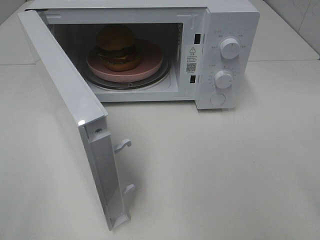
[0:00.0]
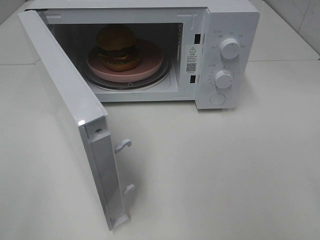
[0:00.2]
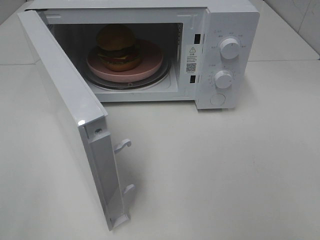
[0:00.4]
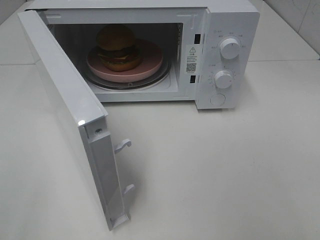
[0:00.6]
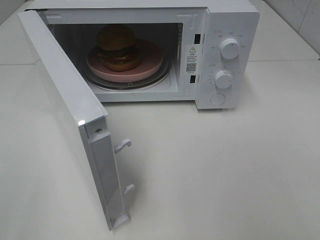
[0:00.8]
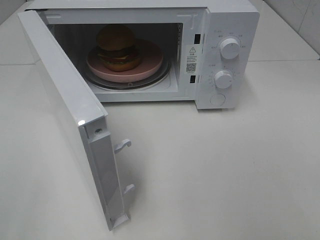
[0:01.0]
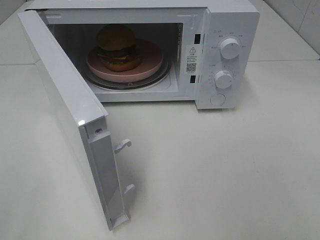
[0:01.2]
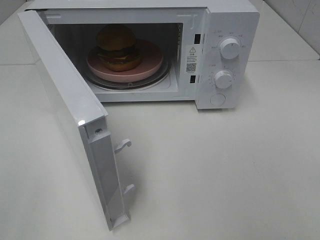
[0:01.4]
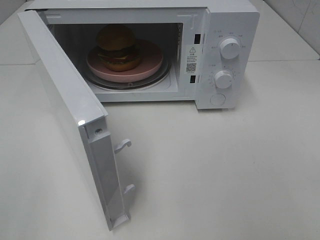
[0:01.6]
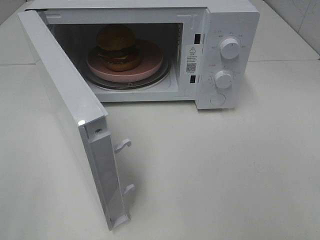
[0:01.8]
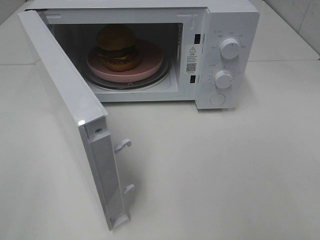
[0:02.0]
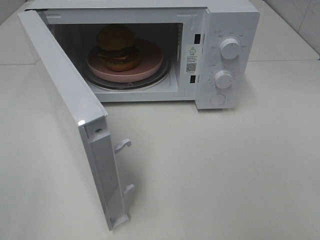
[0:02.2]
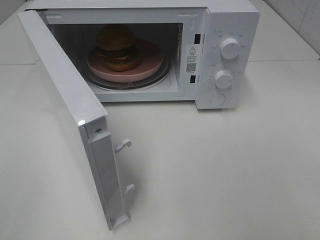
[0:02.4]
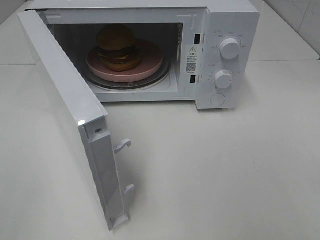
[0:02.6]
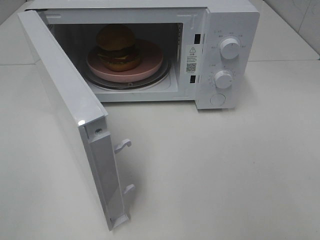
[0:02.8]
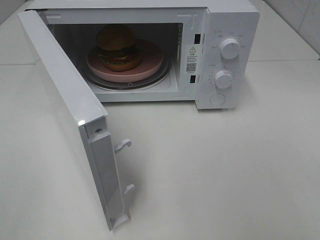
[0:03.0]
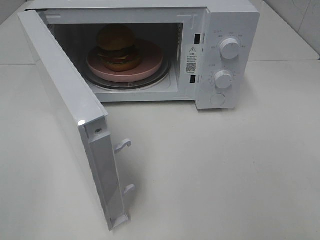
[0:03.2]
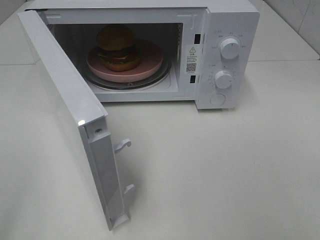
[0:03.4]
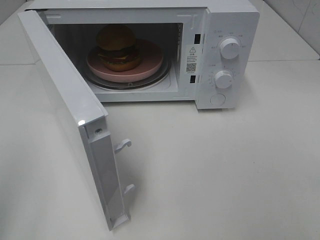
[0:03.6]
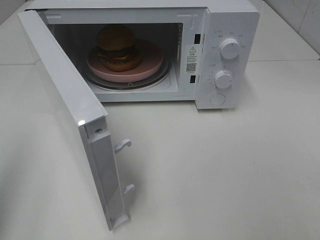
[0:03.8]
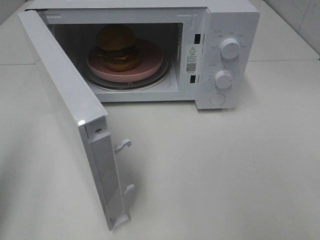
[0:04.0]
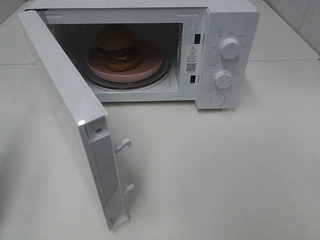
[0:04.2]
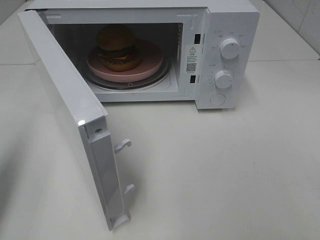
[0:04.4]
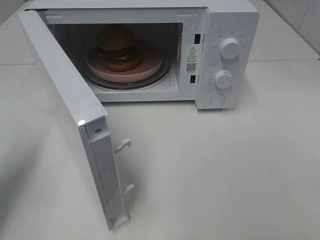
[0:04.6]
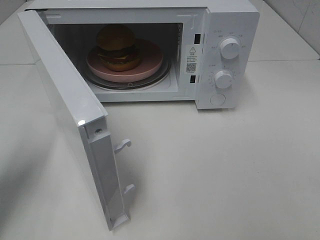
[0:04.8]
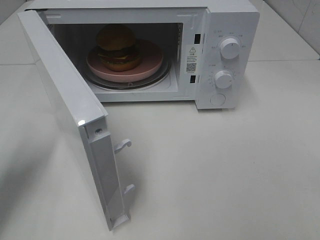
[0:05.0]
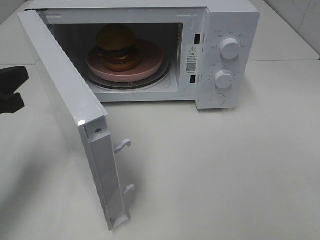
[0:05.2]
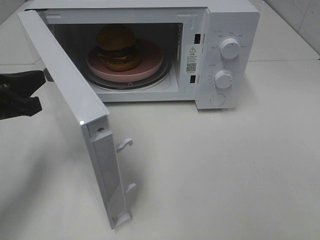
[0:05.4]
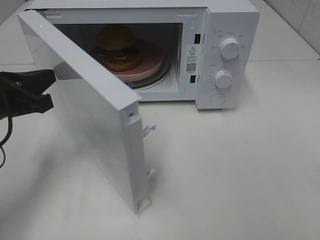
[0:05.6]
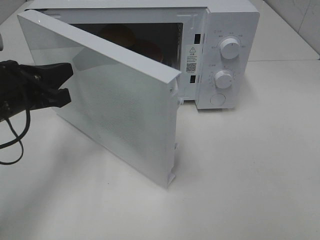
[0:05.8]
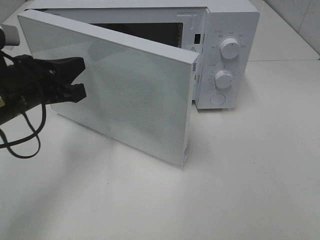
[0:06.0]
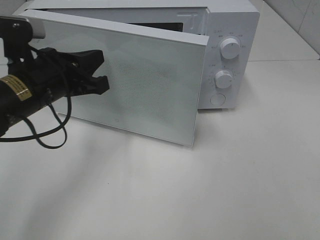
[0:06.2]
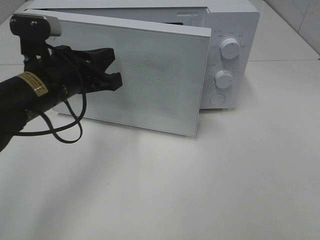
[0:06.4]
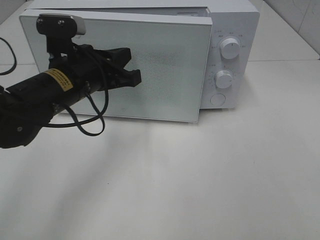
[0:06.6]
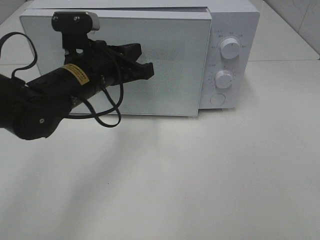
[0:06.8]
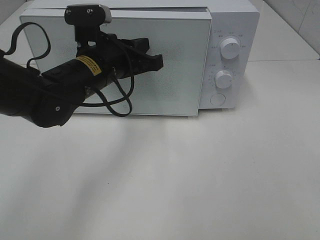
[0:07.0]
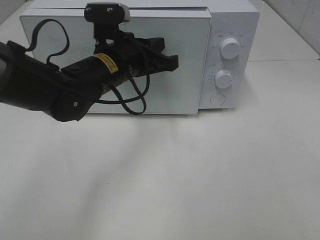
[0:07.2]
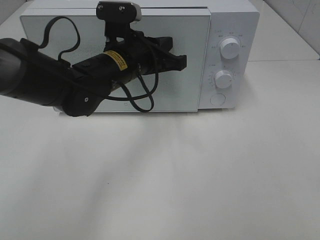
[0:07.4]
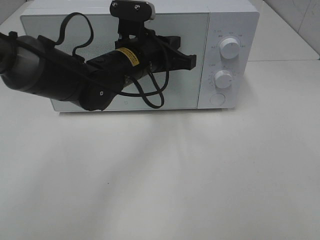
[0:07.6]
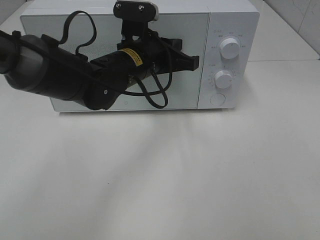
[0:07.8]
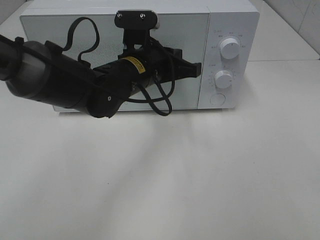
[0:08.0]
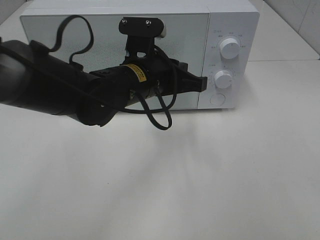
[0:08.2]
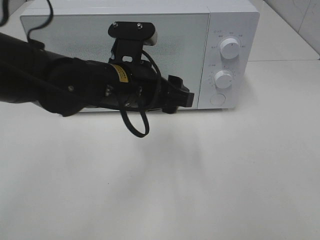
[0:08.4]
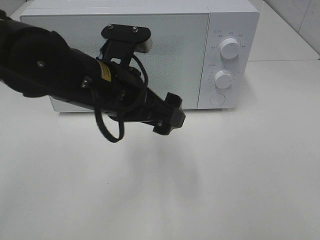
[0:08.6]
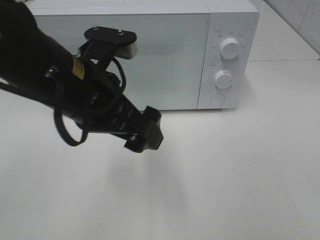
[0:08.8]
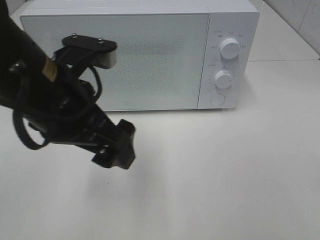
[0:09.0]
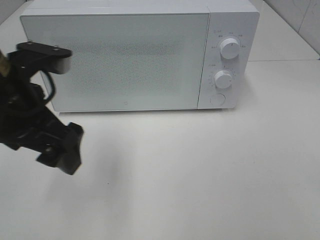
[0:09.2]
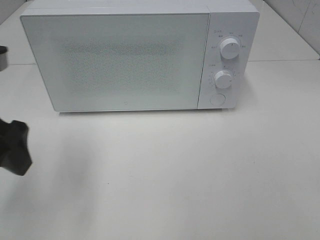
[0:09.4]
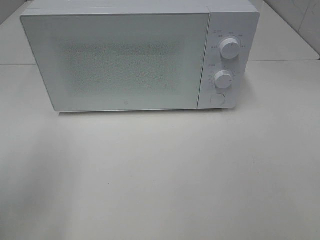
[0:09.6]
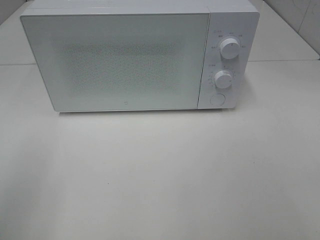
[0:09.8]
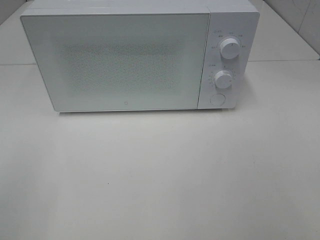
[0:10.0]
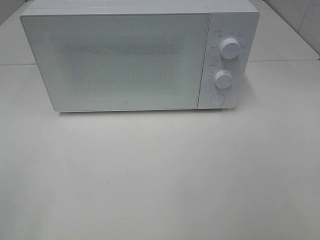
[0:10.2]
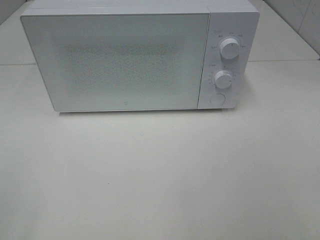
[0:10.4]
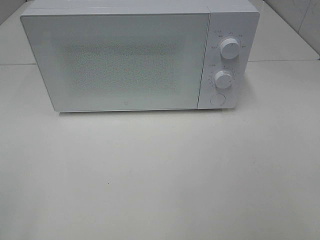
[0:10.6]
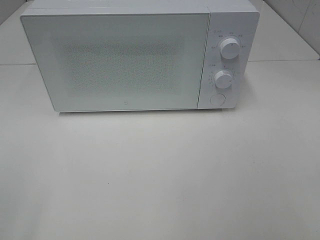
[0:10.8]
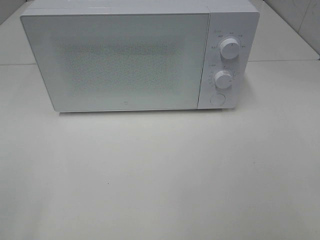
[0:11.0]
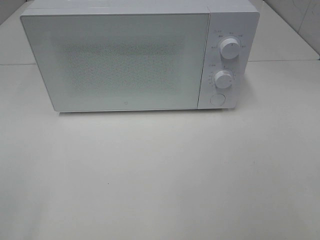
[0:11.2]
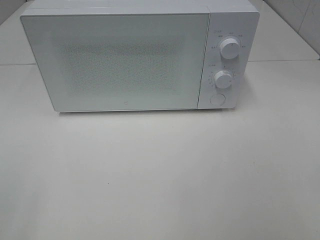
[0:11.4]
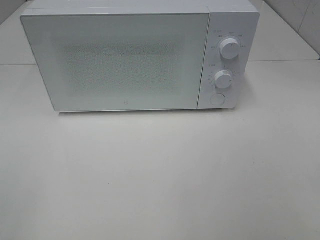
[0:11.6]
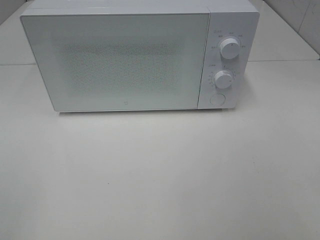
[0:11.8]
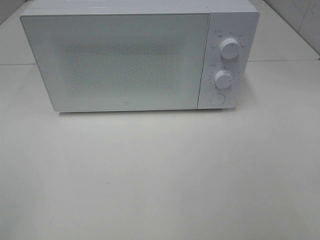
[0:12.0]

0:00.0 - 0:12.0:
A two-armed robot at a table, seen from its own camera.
Task of the whole recording: Heat the burger.
Step, 0:00.0 - 0:07.6: Left hand: close the microwave door.
0:01.6 - 0:03.0: Both grippers stay about where they are.
0:03.0 - 0:04.4: The left gripper shifts approximately 20 cm forward, and closes.
0:04.4 - 0:06.0: The left gripper moves to the right, forward and downward, about 15 cm.
0:06.0 - 0:07.6: The left gripper travels to the right and forward by some 20 cm.
0:07.6 - 0:09.0: The left gripper goes some 20 cm backward, to the left and upward, and opens up.
0:09.0 - 0:10.4: The left gripper shifts approximately 30 cm to the left and backward.

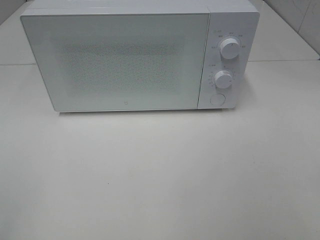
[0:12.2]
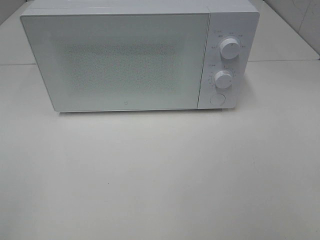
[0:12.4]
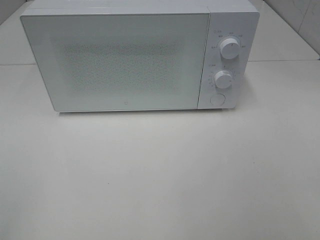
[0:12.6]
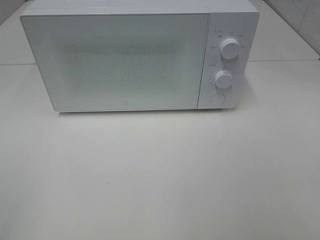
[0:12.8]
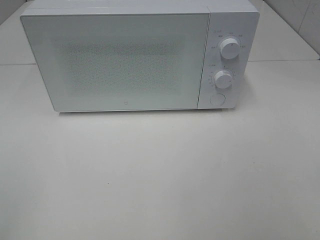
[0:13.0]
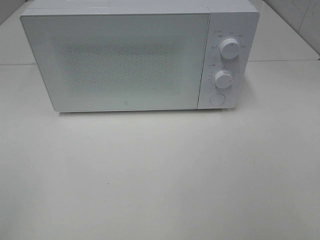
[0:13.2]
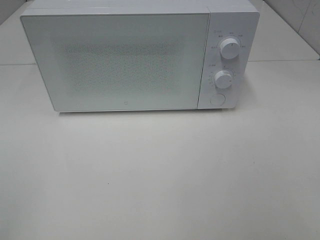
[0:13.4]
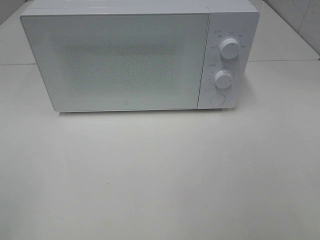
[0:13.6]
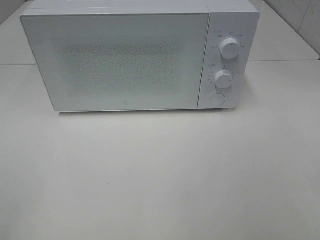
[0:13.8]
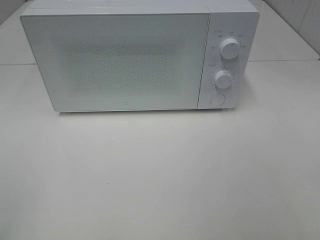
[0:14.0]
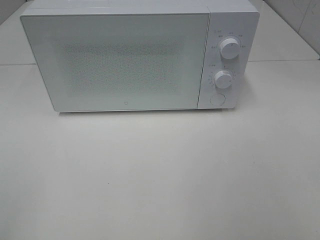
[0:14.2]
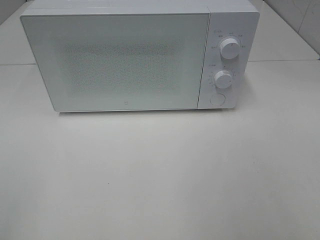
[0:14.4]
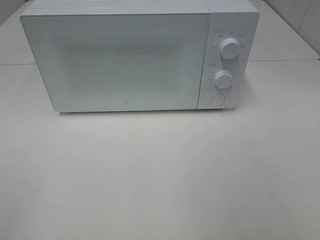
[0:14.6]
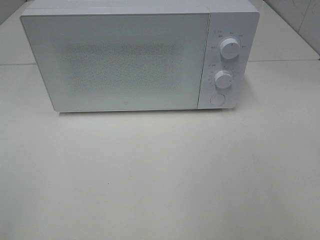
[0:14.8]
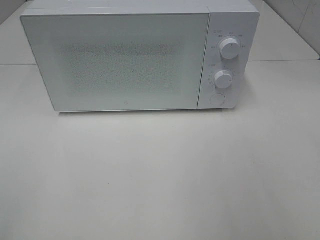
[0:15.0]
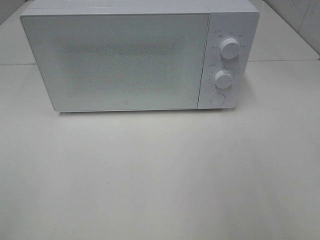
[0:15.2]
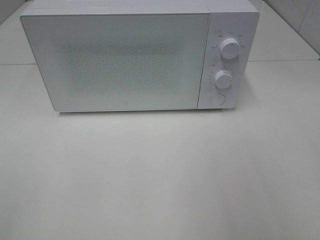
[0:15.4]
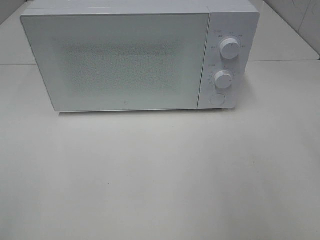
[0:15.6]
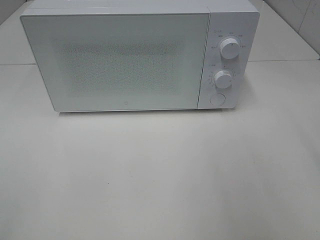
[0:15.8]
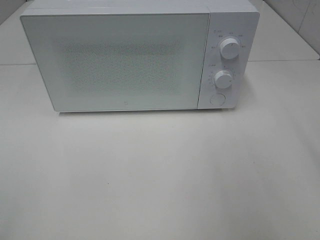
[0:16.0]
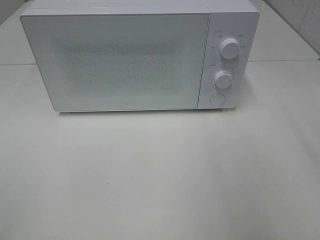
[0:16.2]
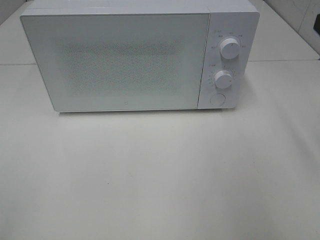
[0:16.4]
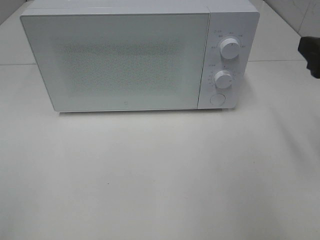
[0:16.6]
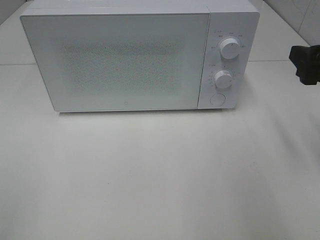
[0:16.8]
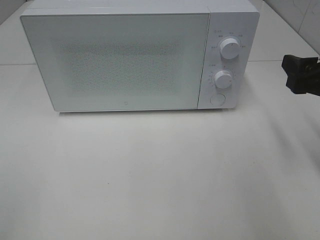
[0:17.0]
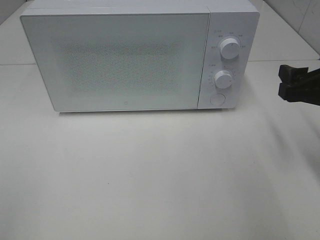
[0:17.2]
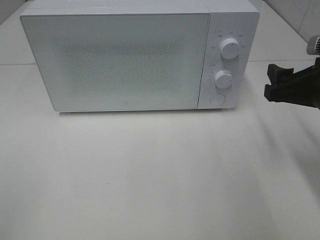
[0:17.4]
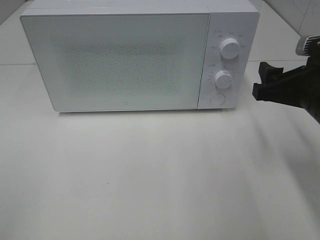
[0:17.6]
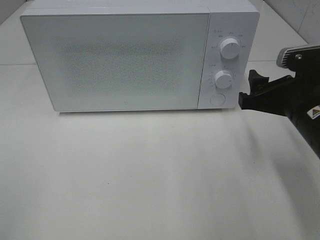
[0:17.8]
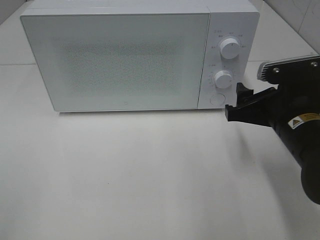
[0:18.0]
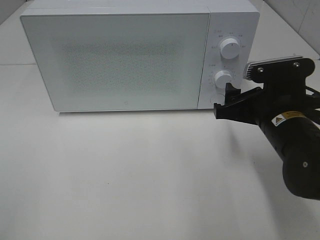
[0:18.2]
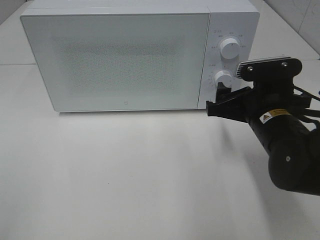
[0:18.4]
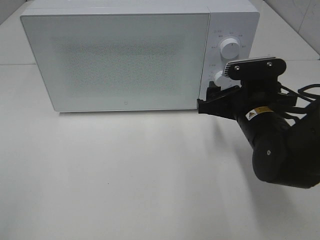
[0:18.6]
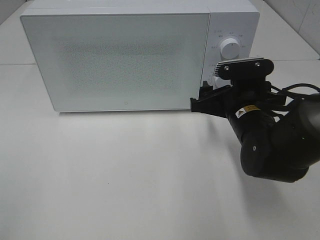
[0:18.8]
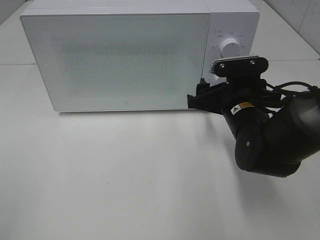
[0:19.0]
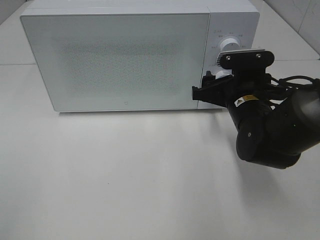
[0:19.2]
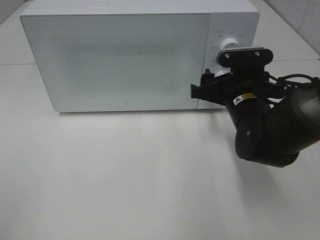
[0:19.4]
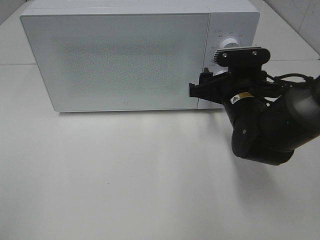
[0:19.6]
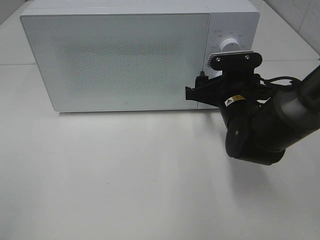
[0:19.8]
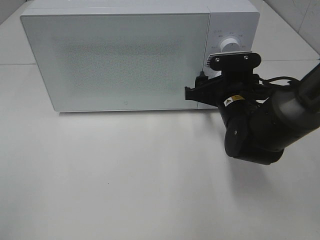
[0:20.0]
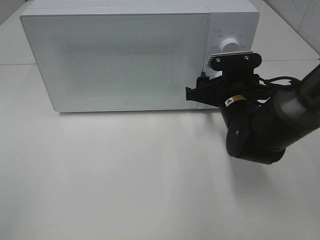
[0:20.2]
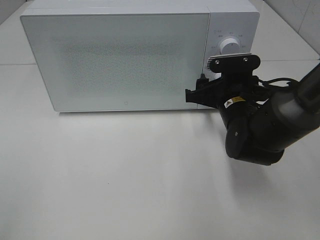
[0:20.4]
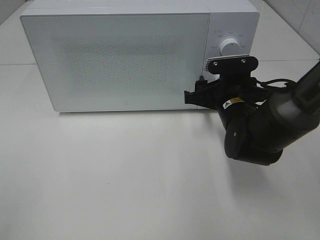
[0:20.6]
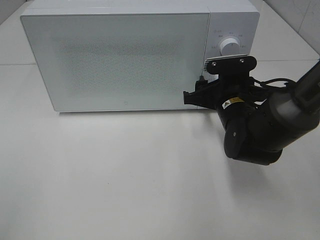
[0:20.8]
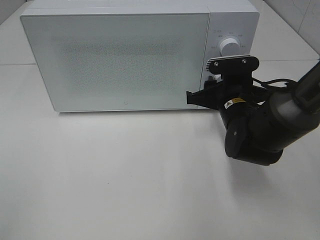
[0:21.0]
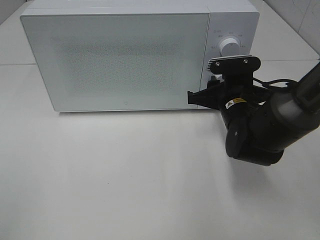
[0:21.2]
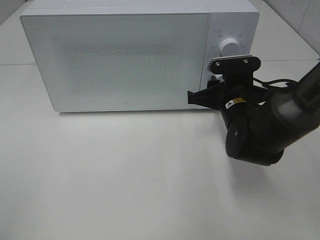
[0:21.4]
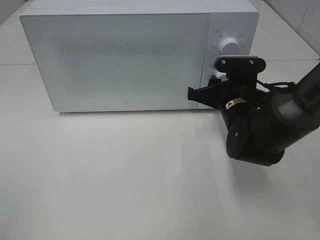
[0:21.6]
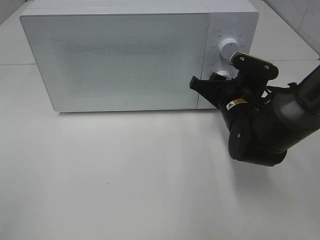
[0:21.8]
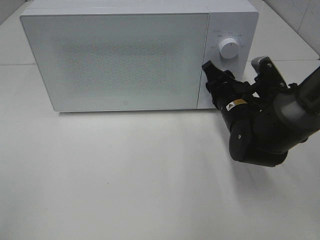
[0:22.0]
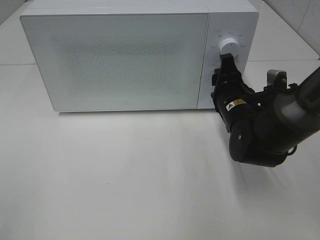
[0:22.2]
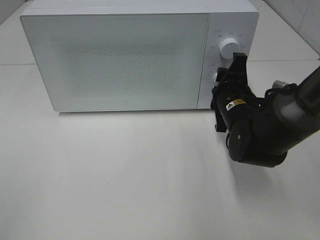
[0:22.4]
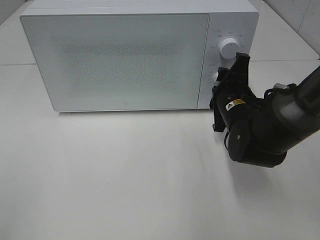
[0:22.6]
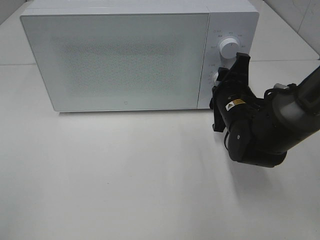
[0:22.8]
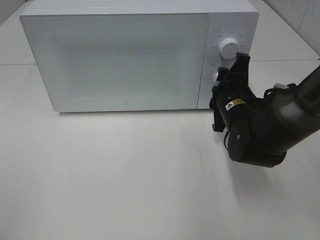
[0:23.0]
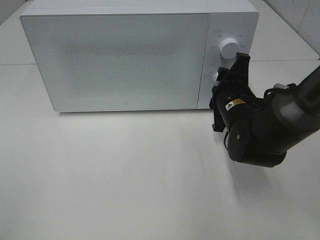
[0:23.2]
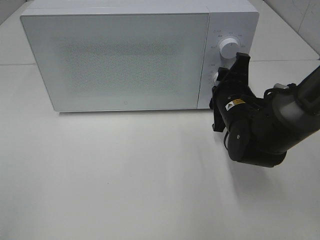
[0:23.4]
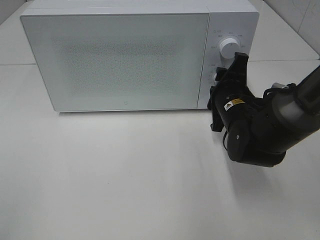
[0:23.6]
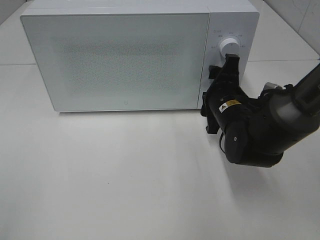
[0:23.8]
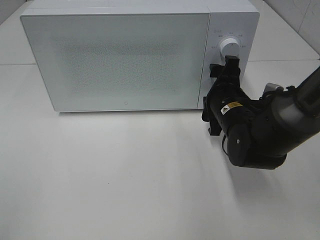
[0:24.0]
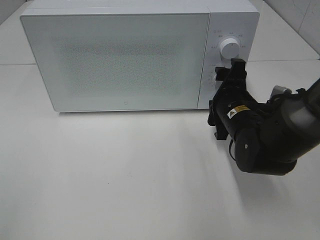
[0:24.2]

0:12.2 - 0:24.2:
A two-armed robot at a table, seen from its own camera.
Task of the whole recording: Heat the burger.
Step, 0:12.2 - 0:23.6: Right hand: twist timer button.
0:12.2 - 0:13.8: Neither gripper changes place.
0:15.2 - 0:16.6: The right gripper is displaced forward and downward by approximately 15 cm.
0:16.6 - 0:18.2: The right gripper moves downward and to the left, approximately 15 cm.
0:18.2 - 0:19.8: The right gripper is displaced forward by roughly 5 cm.
0:19.8 - 0:21.2: The right gripper closes up.
0:22.6 - 0:24.2: The right gripper opens.
